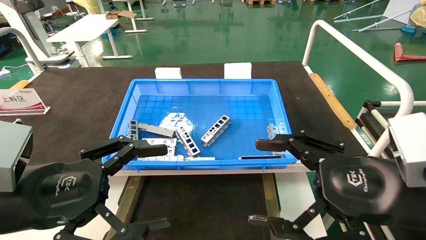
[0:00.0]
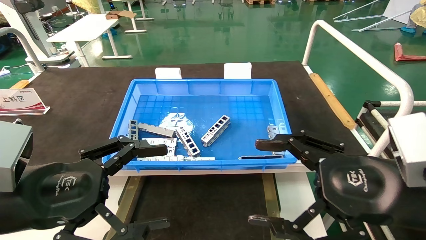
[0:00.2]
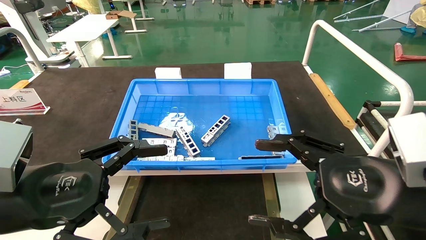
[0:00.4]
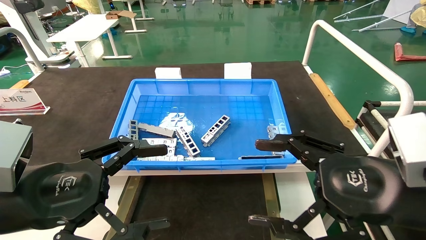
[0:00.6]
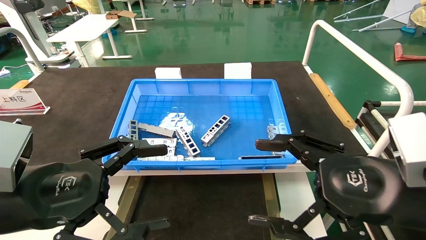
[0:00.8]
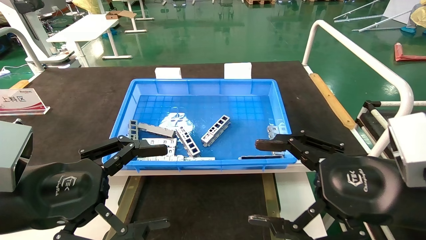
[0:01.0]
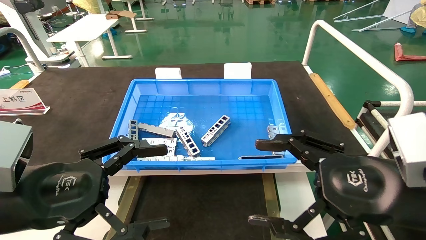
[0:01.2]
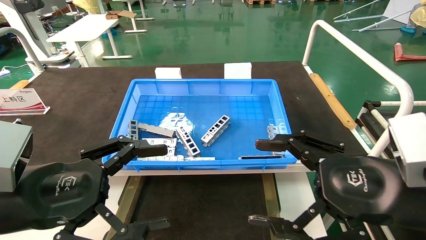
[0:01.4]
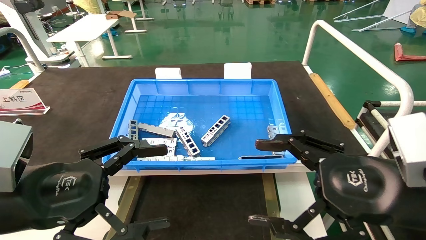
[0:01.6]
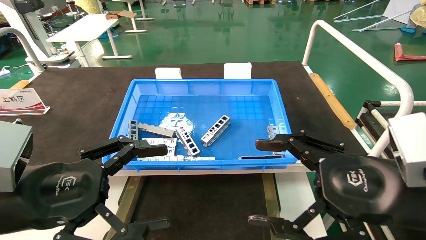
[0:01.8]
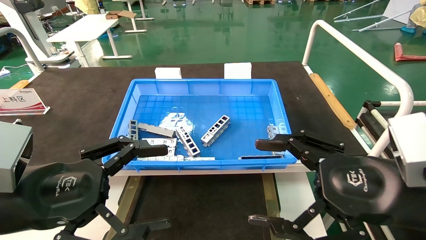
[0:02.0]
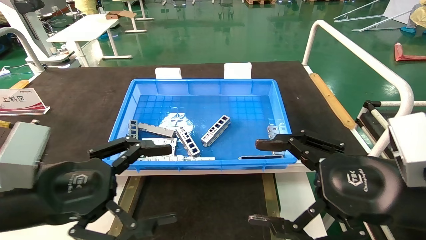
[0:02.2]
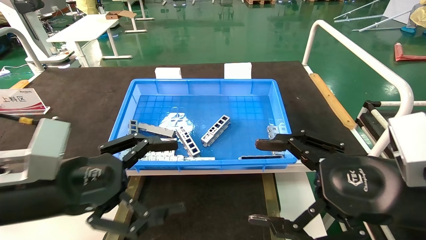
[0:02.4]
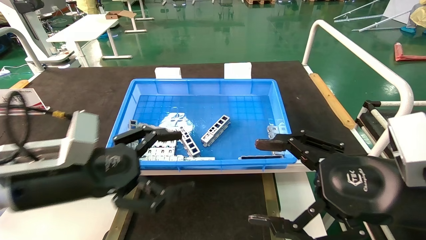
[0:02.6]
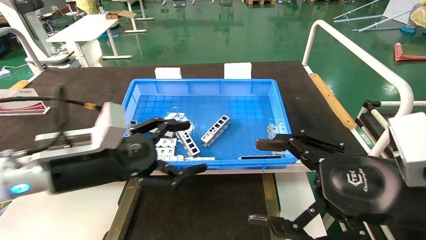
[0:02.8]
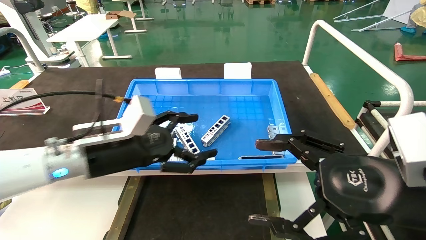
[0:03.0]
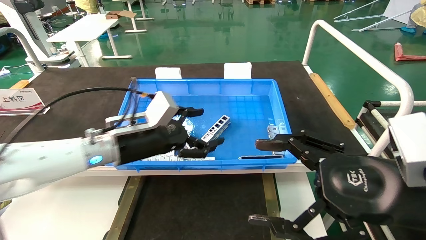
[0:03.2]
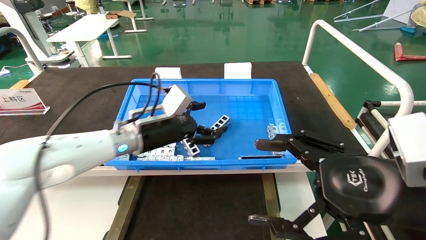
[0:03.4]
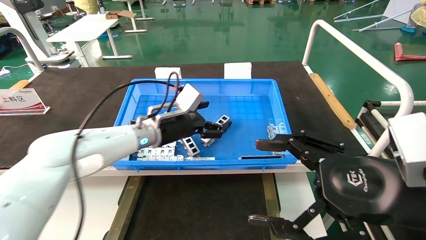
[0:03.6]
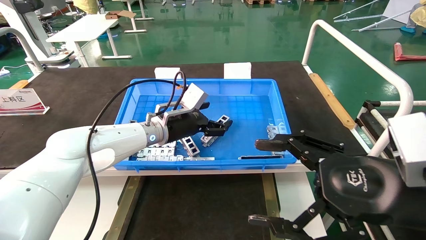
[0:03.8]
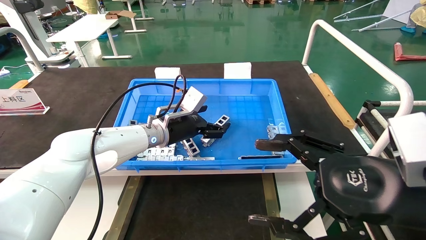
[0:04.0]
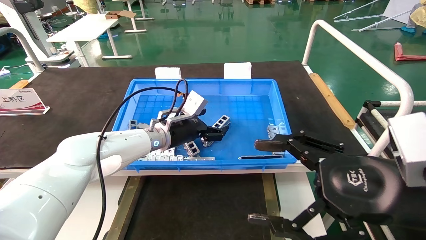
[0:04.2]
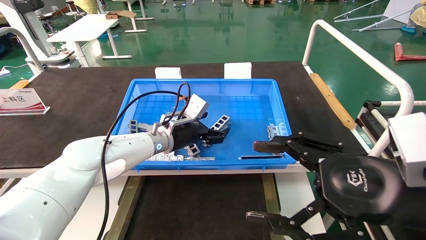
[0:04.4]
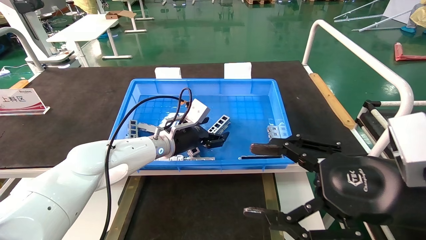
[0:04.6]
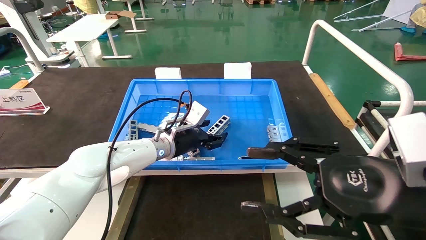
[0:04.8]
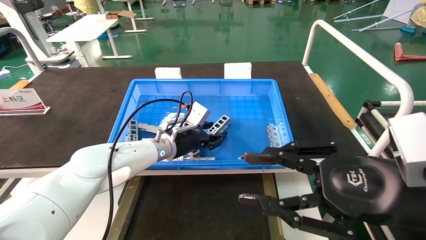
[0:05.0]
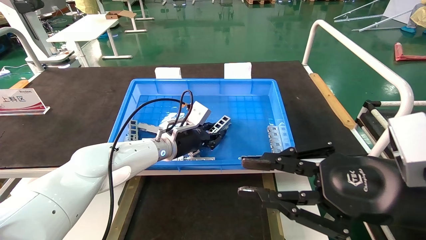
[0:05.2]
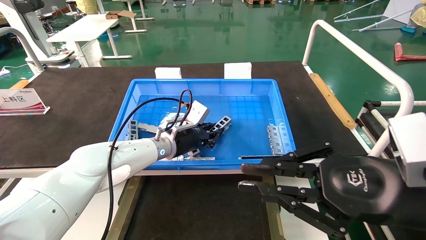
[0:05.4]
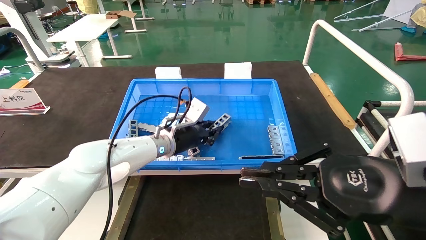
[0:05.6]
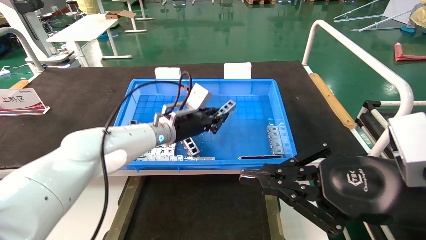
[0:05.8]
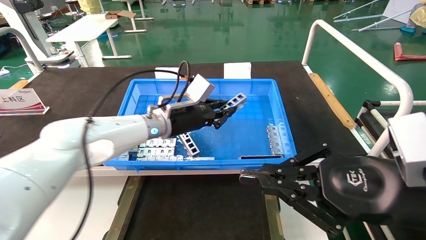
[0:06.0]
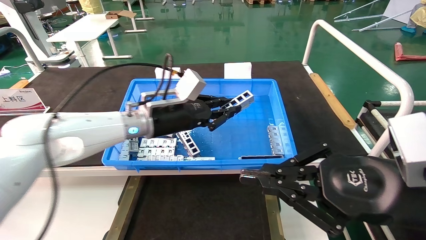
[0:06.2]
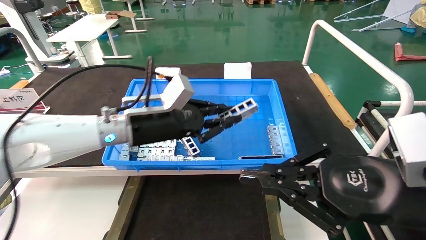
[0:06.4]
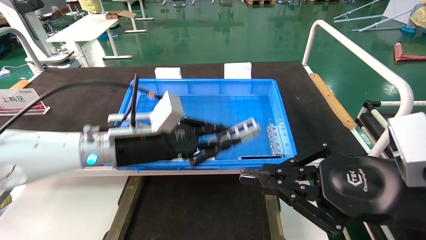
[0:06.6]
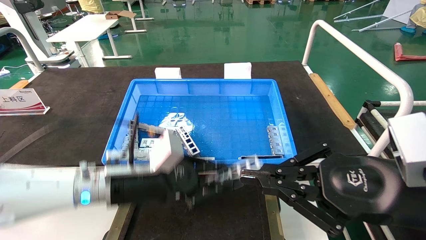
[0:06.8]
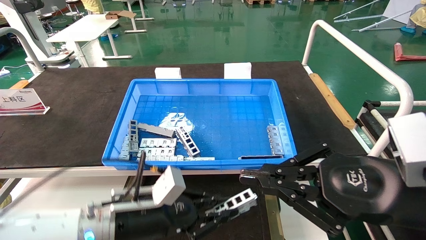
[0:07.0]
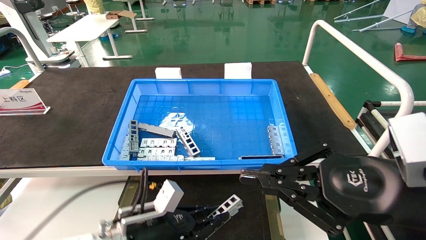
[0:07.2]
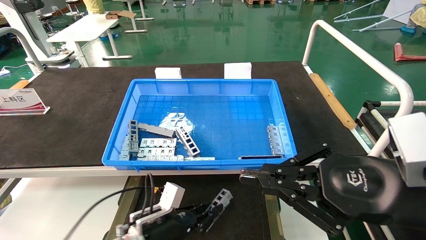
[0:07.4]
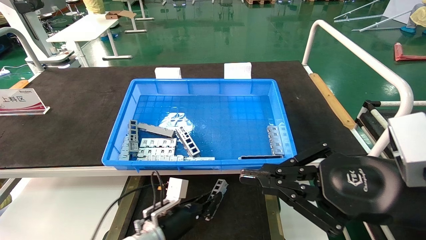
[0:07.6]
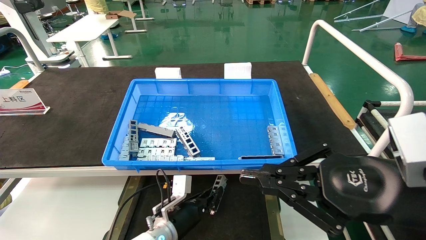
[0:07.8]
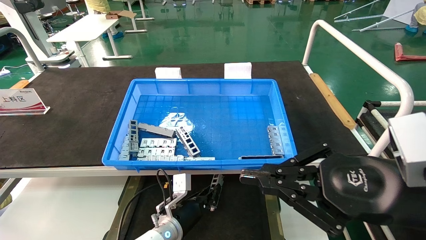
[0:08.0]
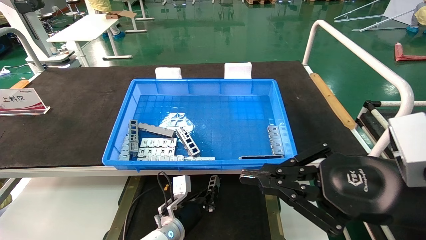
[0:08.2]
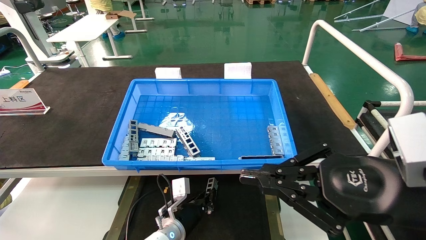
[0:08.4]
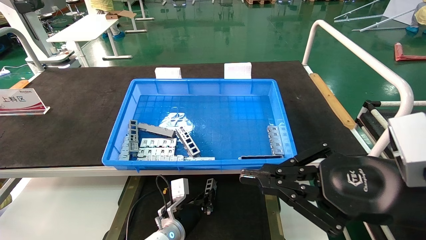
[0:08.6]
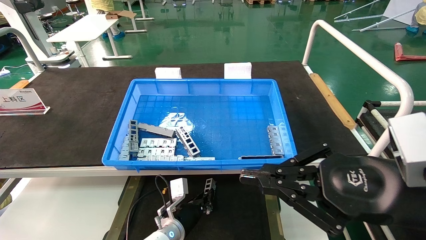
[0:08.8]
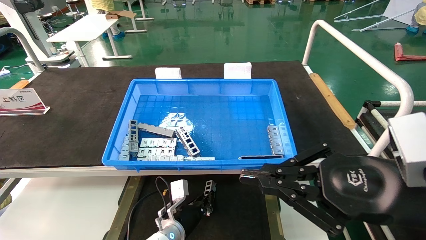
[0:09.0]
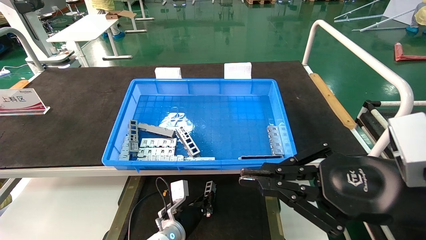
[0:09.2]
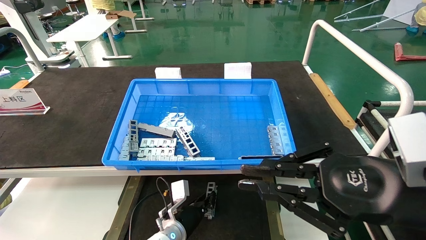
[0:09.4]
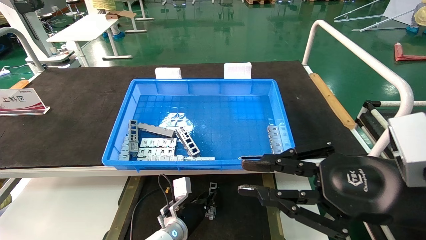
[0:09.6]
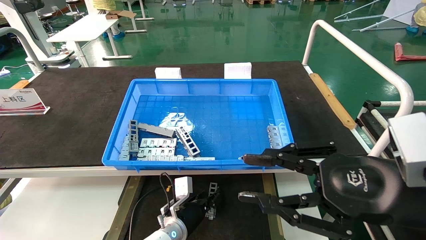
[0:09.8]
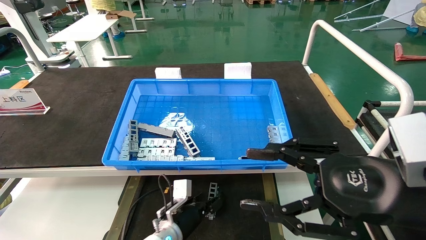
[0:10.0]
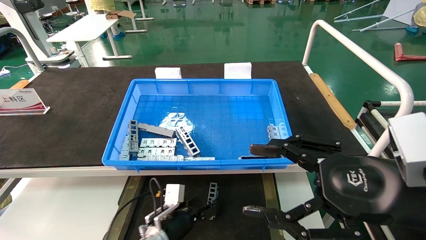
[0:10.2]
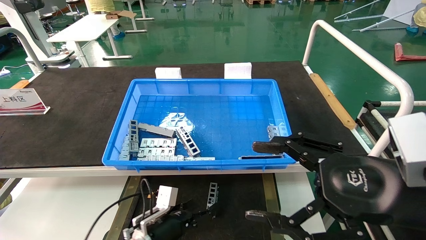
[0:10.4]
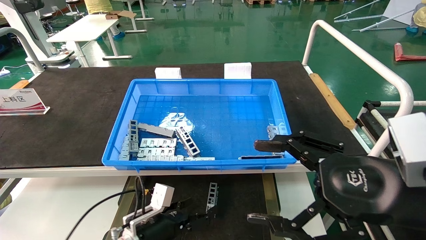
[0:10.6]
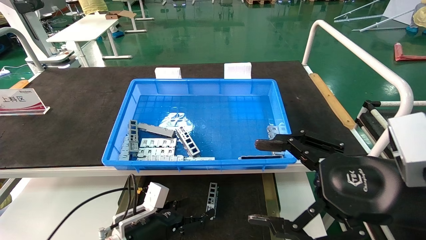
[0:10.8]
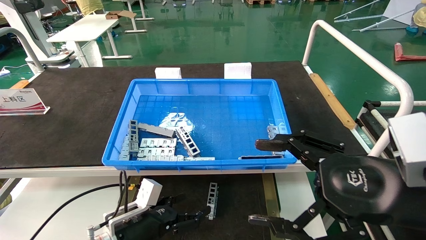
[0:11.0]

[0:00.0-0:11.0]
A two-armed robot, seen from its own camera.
Task of the whole recording: Grasp the part with one hand and place it on the black container.
Step, 0:02.2 to 0:05.2: Pick up the front USB bracket from the feeding area.
Step, 0:05.4 to 0:09.6: Place the front USB bracket into the box.
0:00.0 to 0:01.6: Neither gripper changes place.
0:01.6 to 0:03.2: The left gripper is displaced forward and to the right by about 20 cm.
0:03.2 to 0:04.8: The left gripper goes some 15 cm forward, to the right and downward.
0:04.8 to 0:06.2: The left gripper moves upward and backward, about 10 cm, and closes; the right gripper closes its fingers.
0:06.2 to 0:07.8: The left gripper goes roughly 25 cm downward.
0:07.8 to 0:09.4: The left gripper changes place by approximately 5 cm.
0:09.4 to 0:11.0: The left gripper goes approximately 15 cm to the left, backward and upward, and opens its fingers; the right gripper opens.

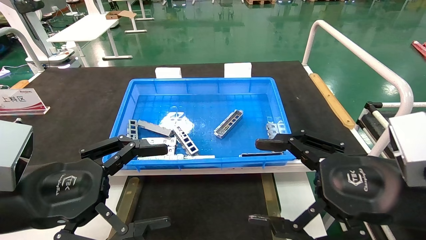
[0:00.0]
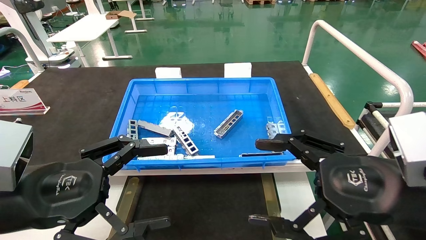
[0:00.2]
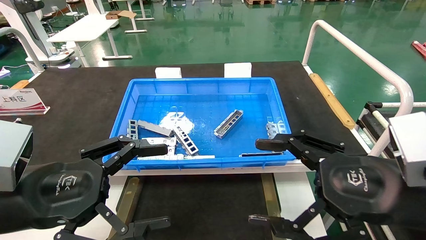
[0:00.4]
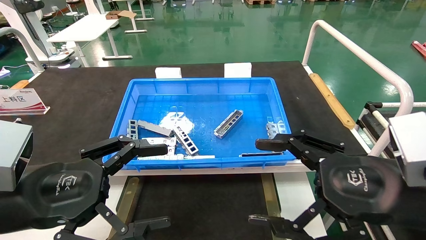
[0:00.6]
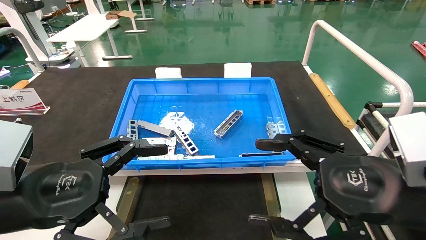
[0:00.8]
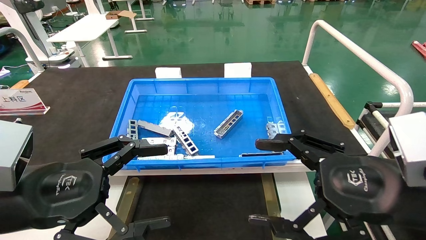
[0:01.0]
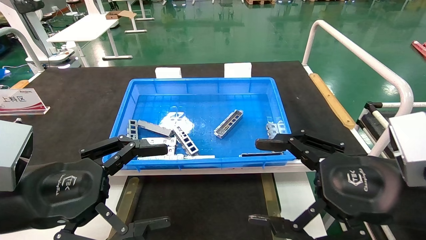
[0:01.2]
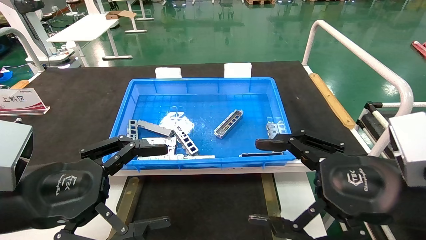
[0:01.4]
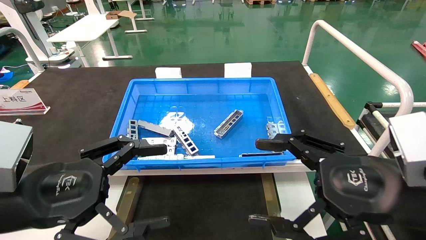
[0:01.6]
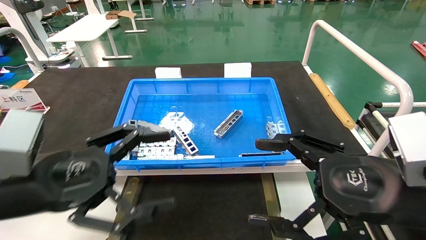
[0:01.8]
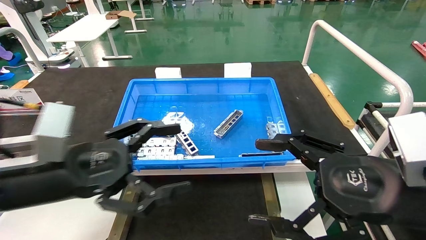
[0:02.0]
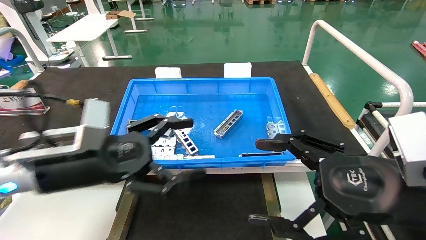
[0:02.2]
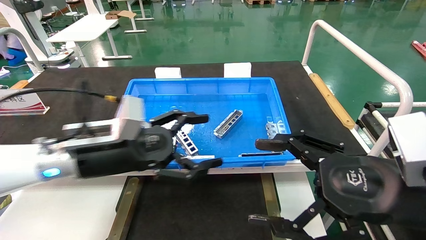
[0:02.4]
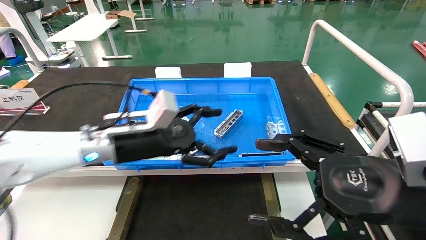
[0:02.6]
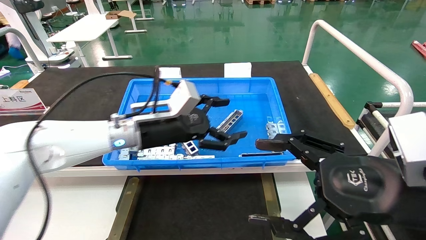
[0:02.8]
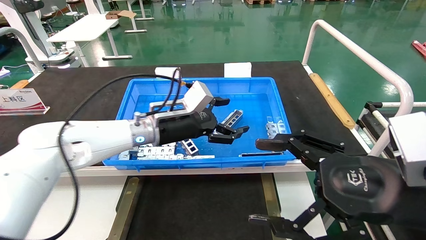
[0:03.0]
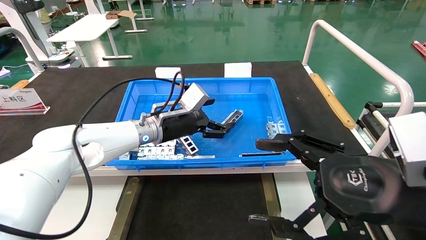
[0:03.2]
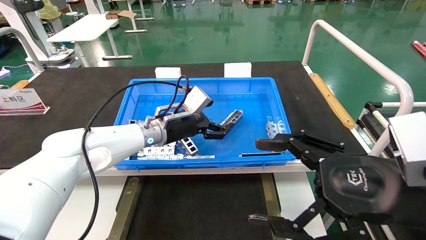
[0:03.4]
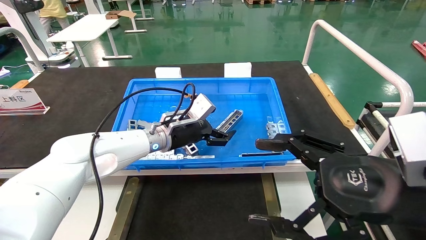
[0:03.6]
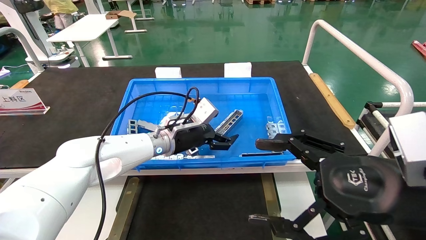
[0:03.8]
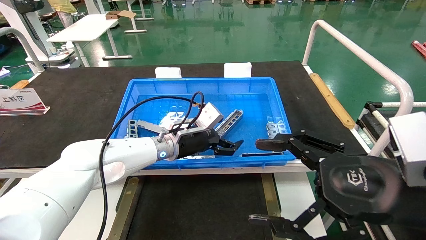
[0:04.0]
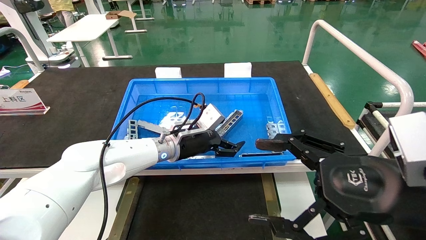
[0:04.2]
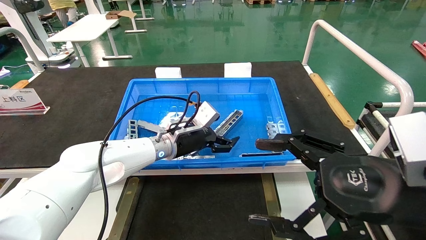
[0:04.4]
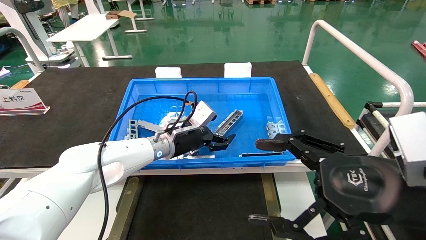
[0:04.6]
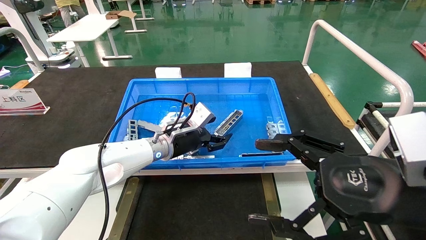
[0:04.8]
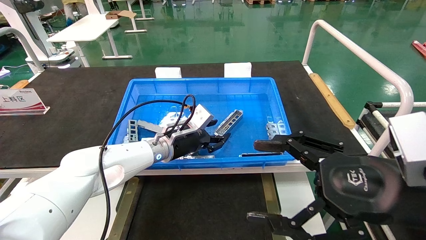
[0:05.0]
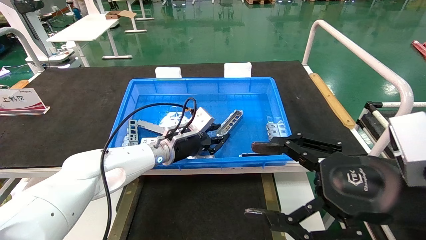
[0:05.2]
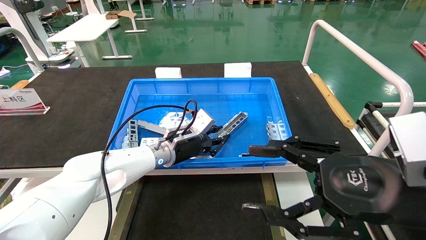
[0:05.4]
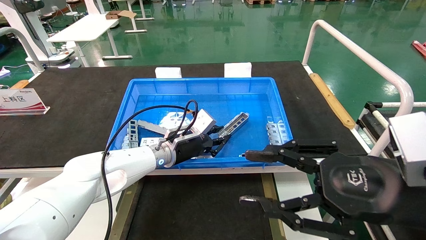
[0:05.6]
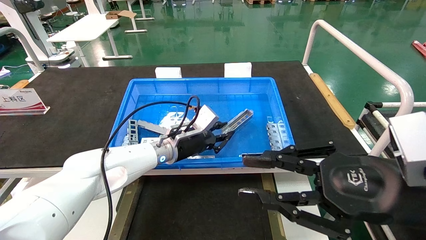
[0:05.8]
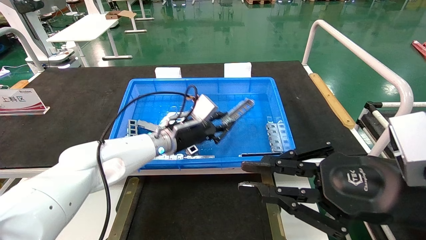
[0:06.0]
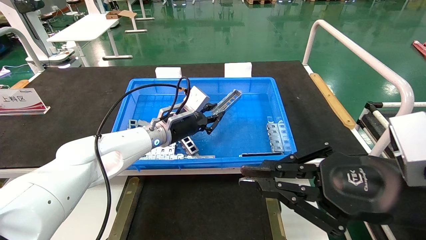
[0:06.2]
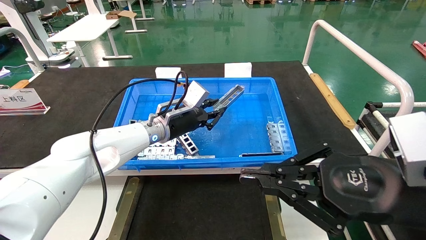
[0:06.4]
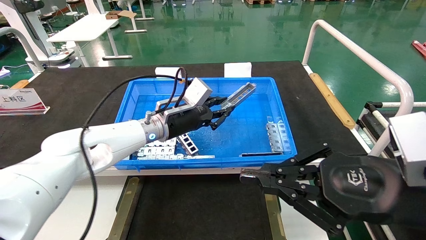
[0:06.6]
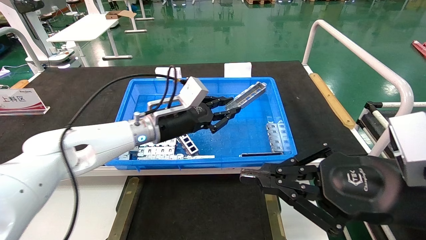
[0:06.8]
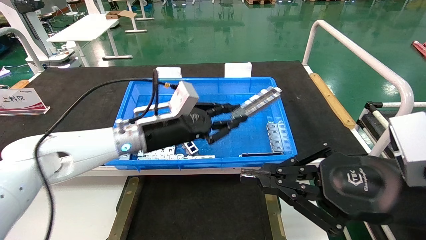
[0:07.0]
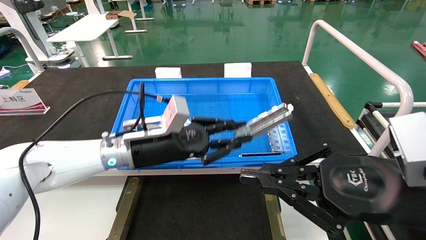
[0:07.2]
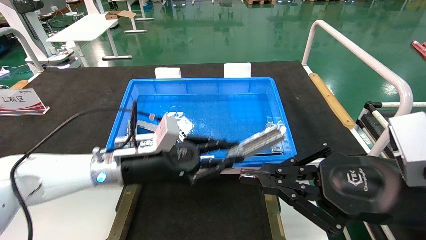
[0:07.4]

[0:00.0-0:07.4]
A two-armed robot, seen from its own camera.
Task of the whole recording: Grasp the part with one hand and place it on the black container.
Step, 0:02.0 to 0:05.4: Pick up the front USB bracket from the feeding area.
0:00.0 to 0:01.4: Neither gripper changes place.
0:01.4 to 0:03.0: The left gripper heads forward and to the right, covering some 30 cm.
0:03.0 to 0:04.4: The left gripper goes some 5 cm downward.
0:04.4 to 0:06.0: The left gripper closes; the right gripper closes up.
0:06.0 to 0:07.4: The left gripper heads backward and to the left, covering roughly 15 cm.
